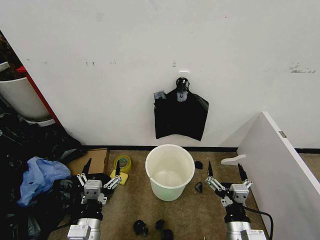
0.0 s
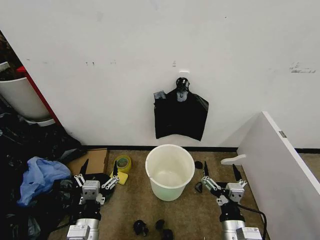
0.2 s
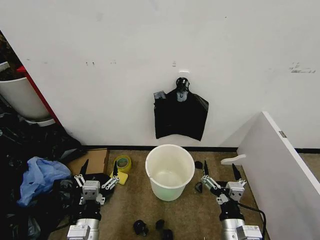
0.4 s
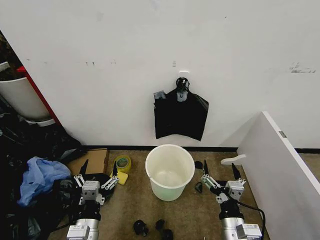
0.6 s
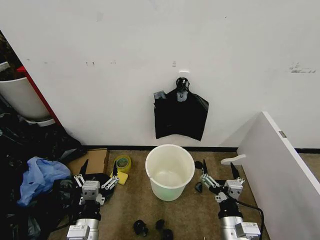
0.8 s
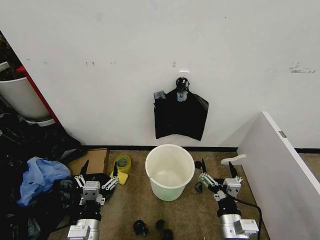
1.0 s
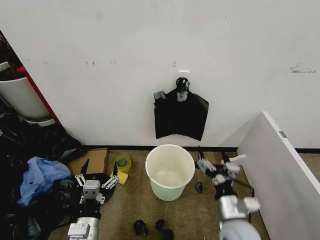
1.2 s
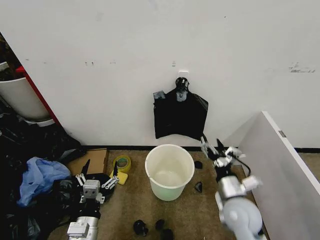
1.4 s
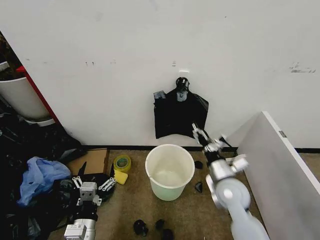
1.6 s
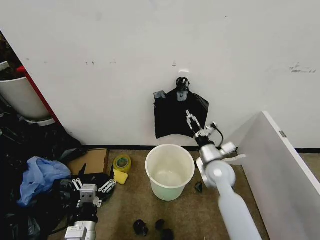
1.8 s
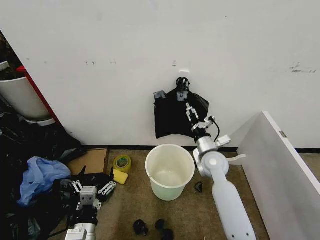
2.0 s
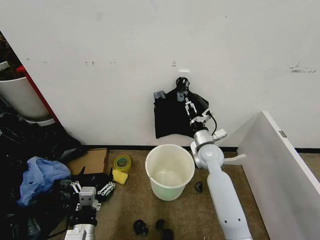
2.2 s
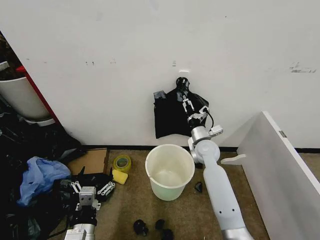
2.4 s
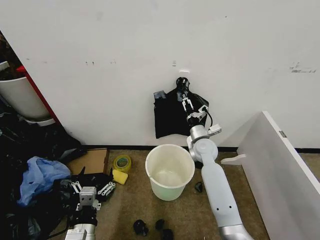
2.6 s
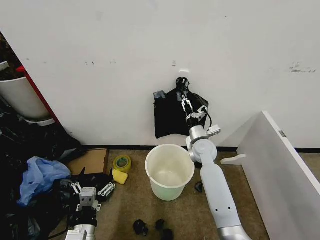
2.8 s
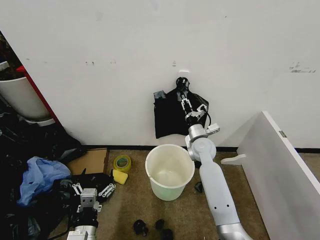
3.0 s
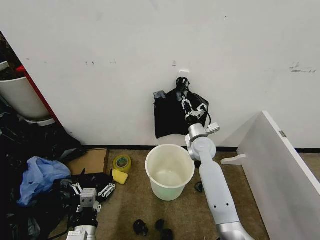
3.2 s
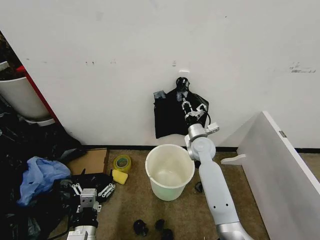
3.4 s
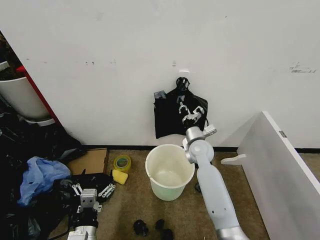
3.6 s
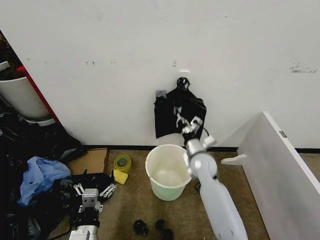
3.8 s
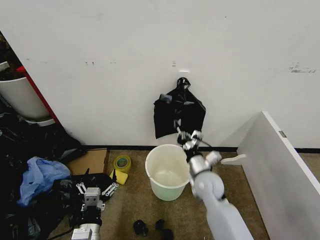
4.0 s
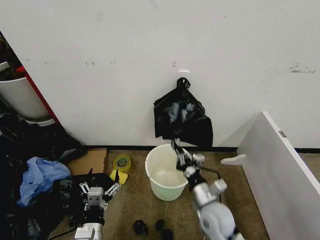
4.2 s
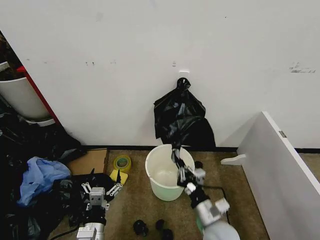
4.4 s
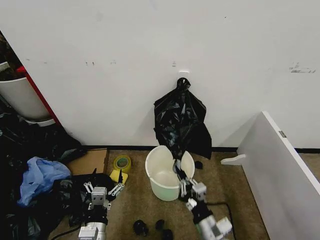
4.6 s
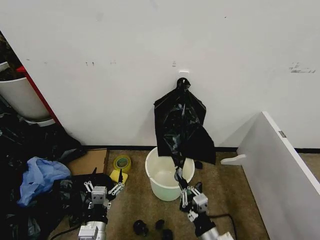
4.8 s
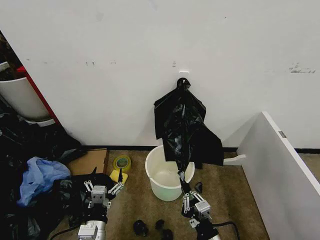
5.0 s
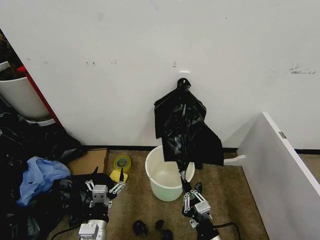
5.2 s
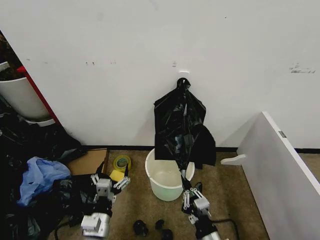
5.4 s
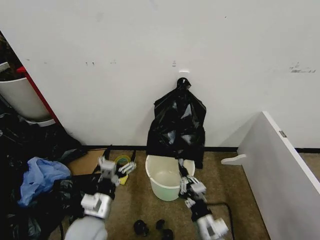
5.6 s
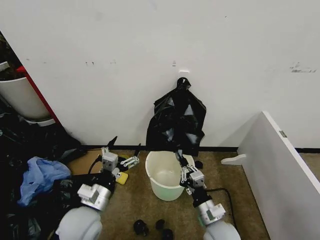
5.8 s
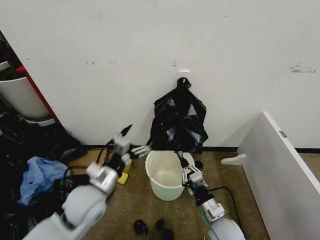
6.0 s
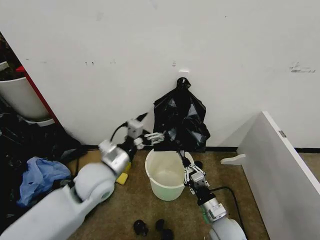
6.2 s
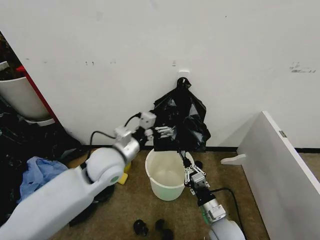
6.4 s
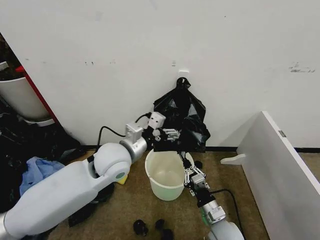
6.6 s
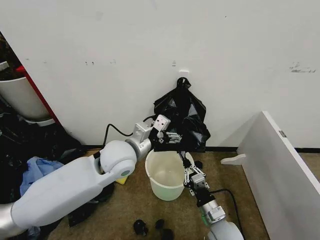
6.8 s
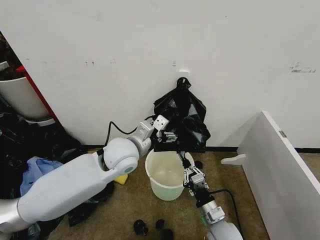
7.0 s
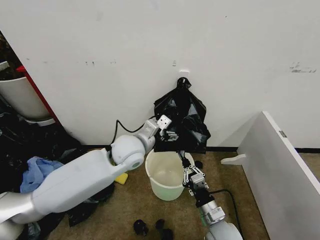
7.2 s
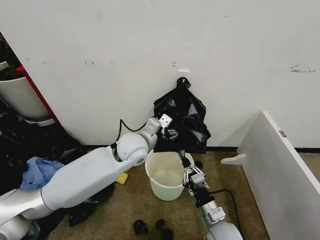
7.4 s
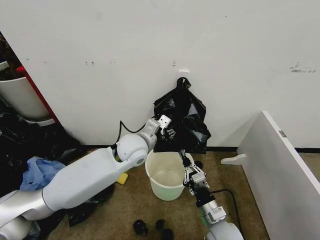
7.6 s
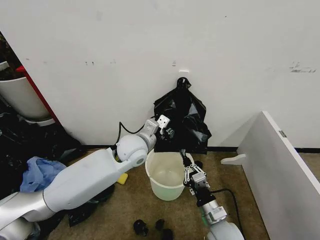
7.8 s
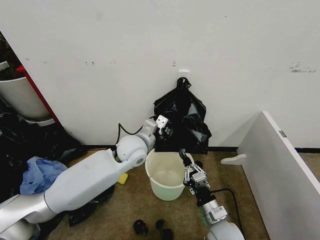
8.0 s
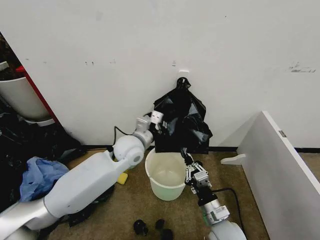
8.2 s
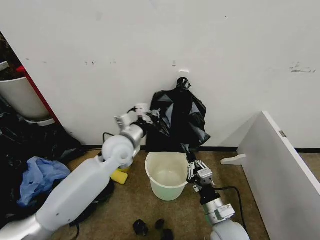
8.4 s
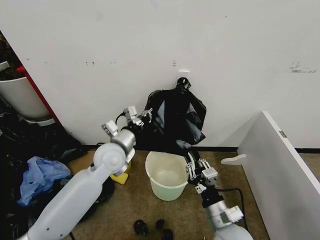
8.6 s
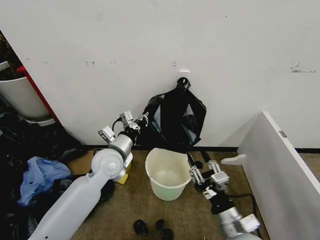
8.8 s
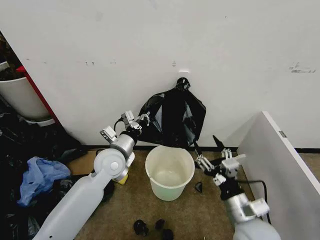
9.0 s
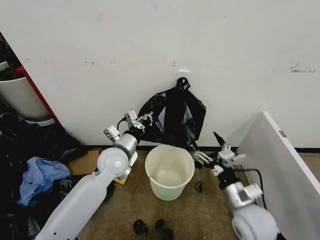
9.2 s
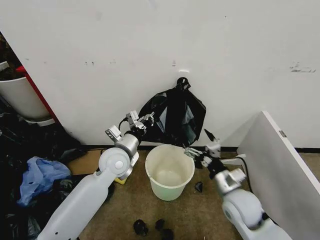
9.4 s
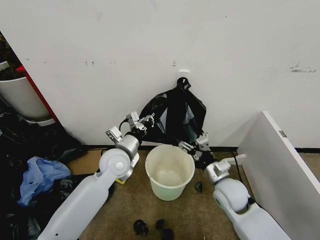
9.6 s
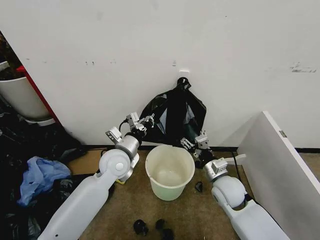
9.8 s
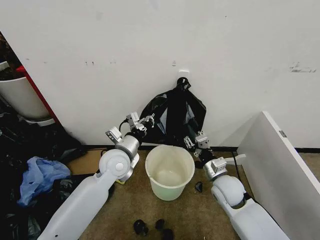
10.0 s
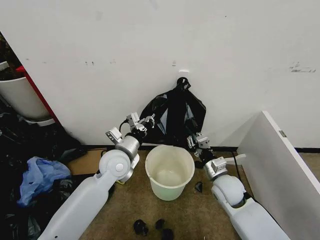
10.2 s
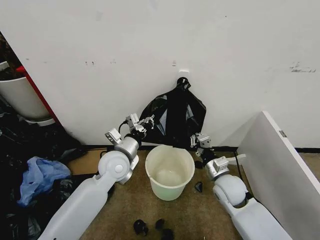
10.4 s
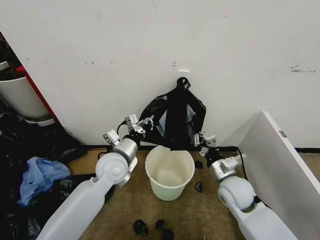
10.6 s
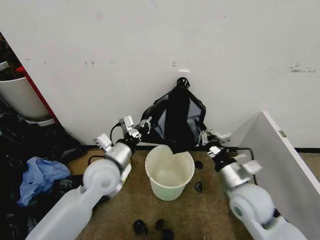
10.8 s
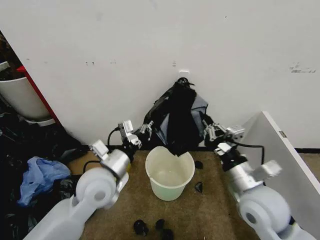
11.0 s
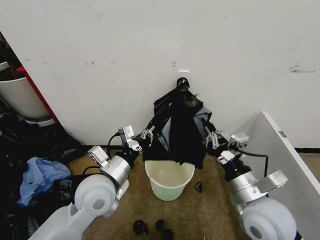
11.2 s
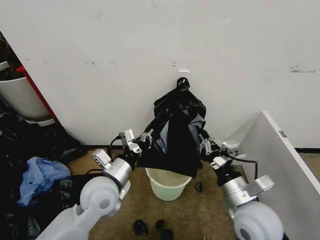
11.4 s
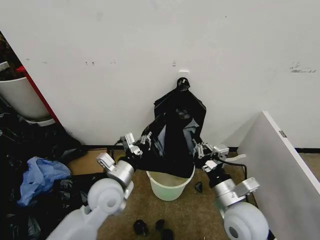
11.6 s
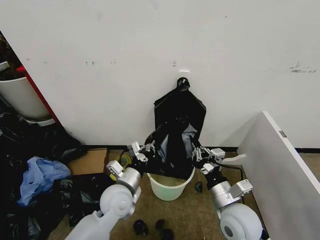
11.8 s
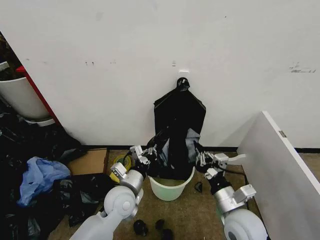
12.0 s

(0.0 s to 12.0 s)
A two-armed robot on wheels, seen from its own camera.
Task of the whole recording: Place the garbage bag over the trash bin.
1.6 s - 3.0 s: The right gripper travels forward by roughly 15 cm, and closes.
3.0 s - 4.4 s: The right gripper heads backward, covering about 25 cm, and closes.
4.4 s - 6.0 s: The left gripper travels upward and forward by about 15 cm. The right gripper goes backward and returns, approximately 10 cm each way.
6.0 s - 7.6 s: The left gripper moves forward and to the right, roughly 20 cm, and closes up.
7.6 s - 9.0 s: The left gripper moves to the left, about 5 cm, and closes up, while the right gripper shifts approximately 10 cm upward, and opens.
9.0 s - 10.4 s: The right gripper goes some 15 cm forward, and closes up.
10.4 s - 12.0 s: The right gripper moves backward, approximately 10 cm, and reaches about 10 cm upward, then returns. Meanwhile the left gripper goes some 10 cm downward and backward.

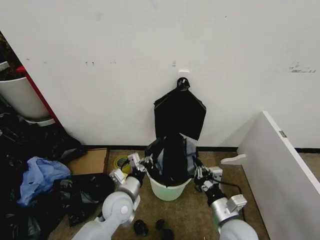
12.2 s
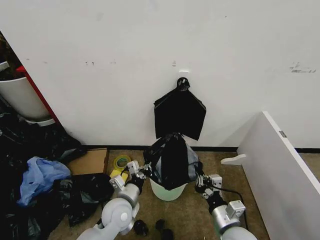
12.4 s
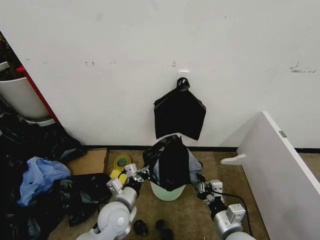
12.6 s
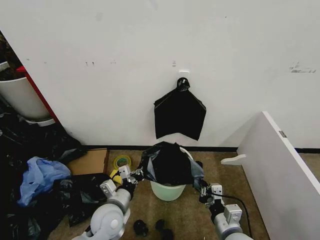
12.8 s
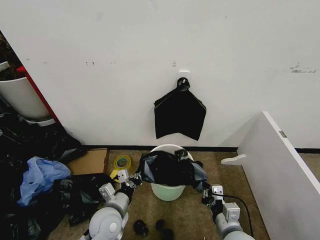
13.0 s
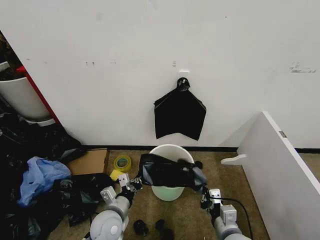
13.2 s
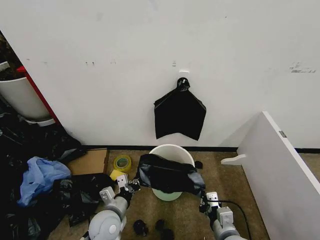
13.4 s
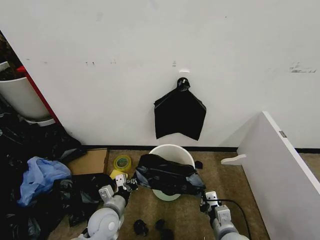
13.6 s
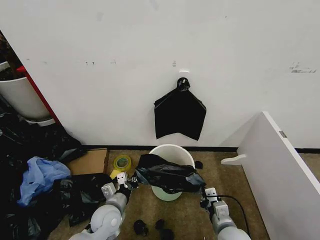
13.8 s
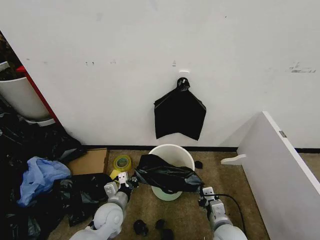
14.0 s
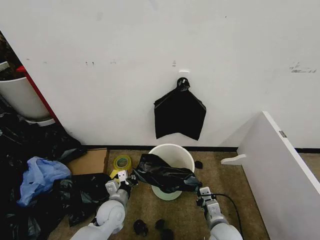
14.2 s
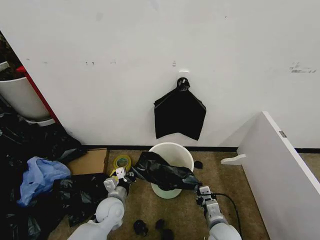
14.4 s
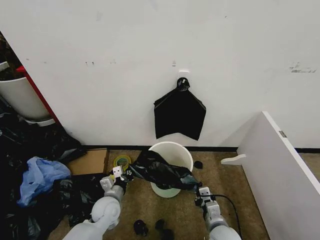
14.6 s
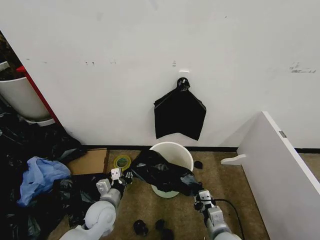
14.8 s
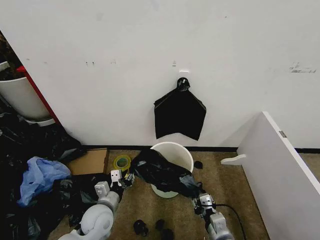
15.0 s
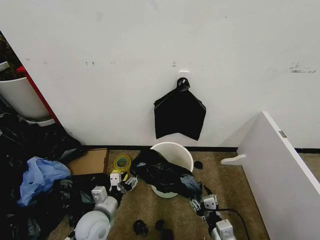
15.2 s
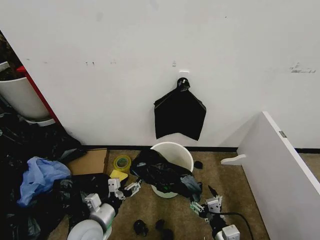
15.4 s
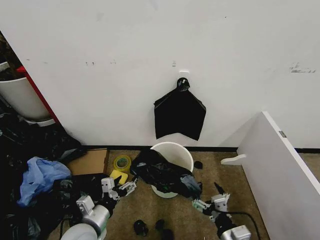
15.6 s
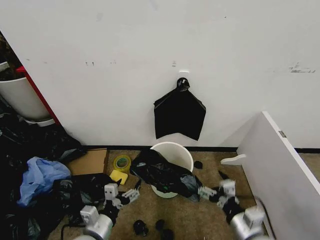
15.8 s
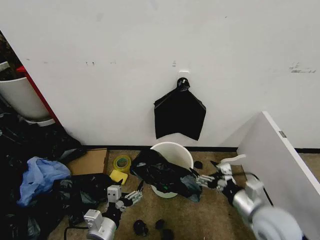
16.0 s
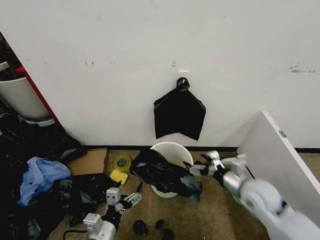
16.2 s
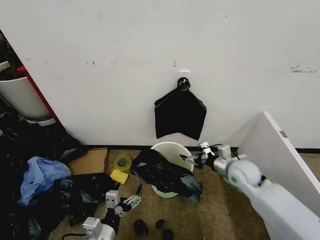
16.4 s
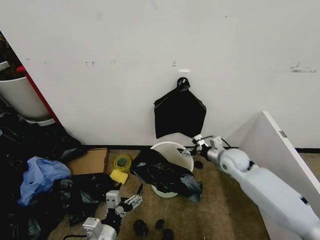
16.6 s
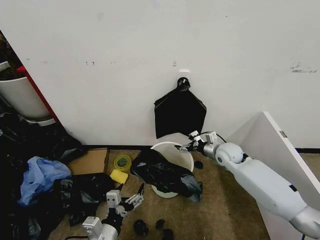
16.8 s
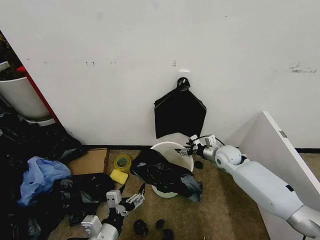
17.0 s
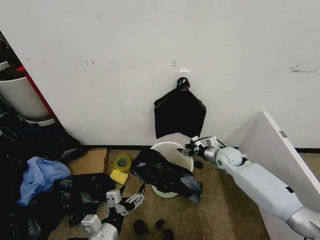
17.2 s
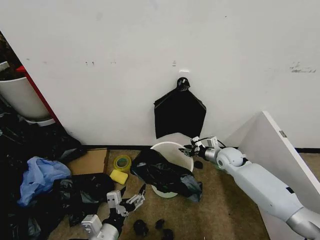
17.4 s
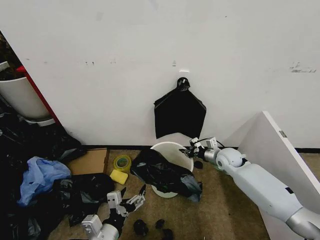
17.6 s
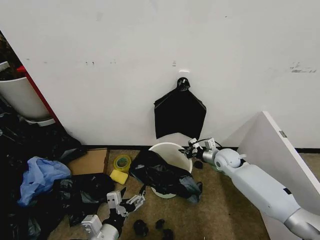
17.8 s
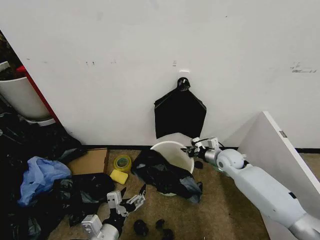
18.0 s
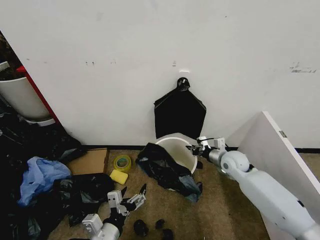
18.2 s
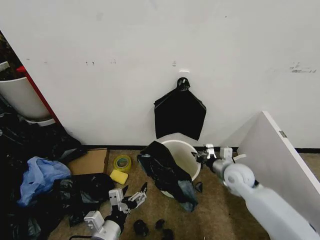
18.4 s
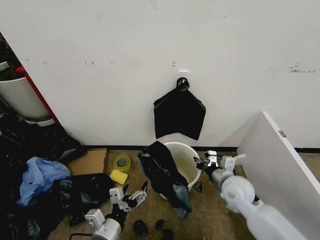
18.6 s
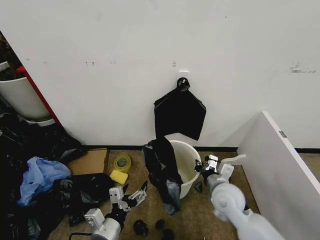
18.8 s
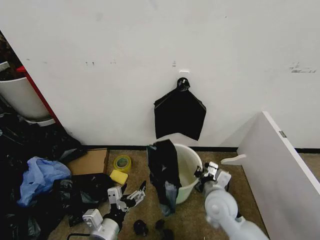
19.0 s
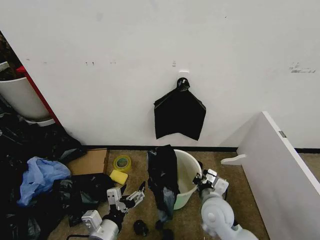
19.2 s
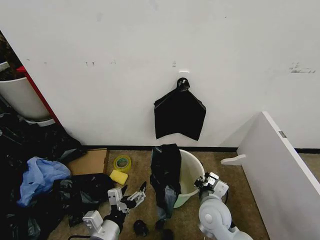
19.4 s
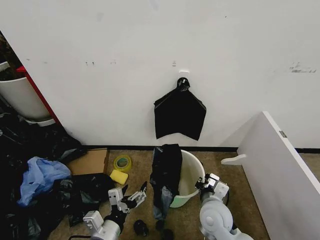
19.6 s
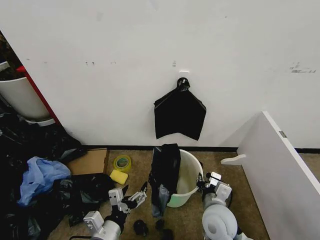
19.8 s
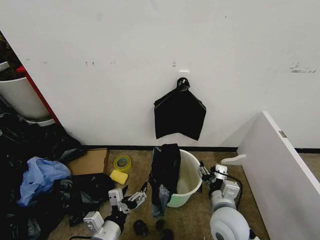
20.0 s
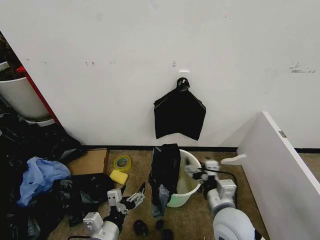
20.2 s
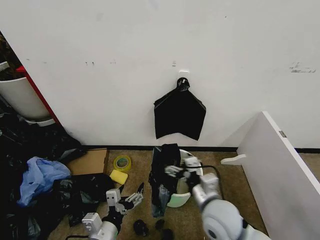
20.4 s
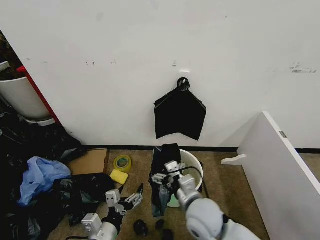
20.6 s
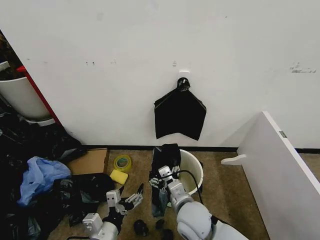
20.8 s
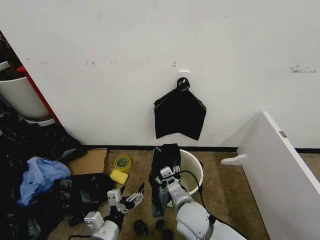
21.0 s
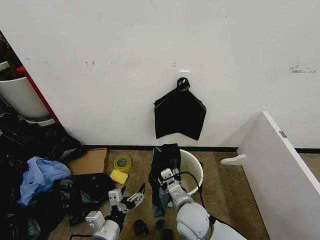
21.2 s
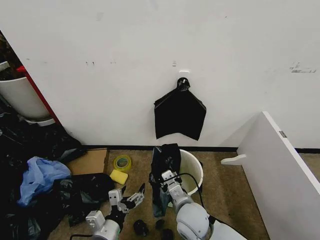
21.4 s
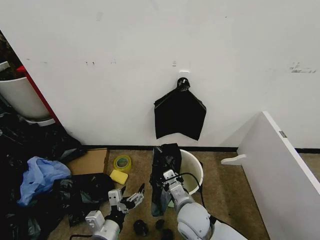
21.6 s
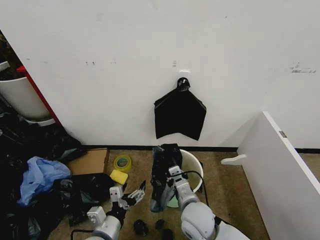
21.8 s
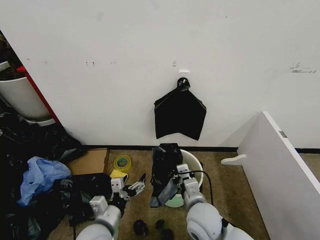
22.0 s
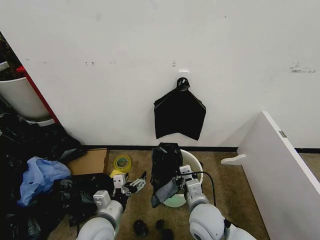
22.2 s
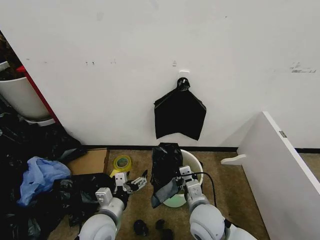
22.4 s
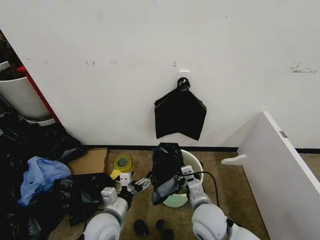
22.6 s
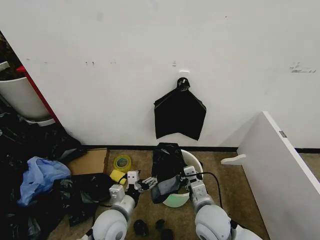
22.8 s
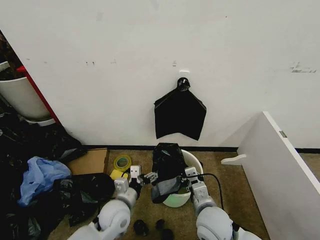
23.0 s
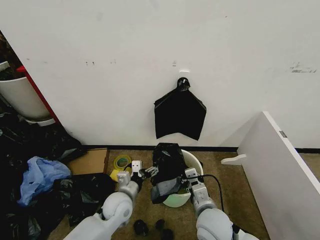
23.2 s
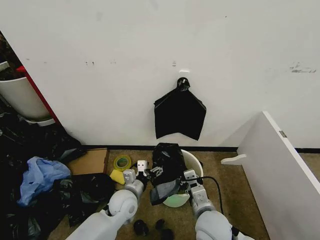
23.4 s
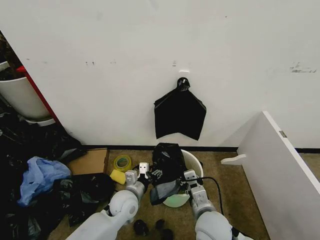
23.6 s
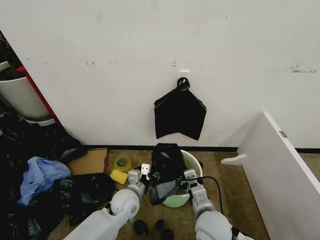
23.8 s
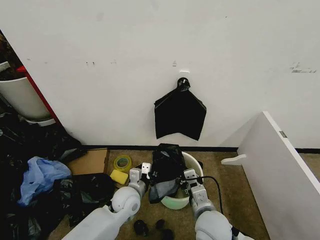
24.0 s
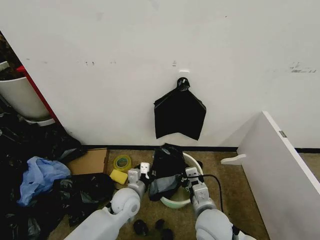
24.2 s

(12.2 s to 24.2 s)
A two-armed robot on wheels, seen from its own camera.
Task of the whole recording: Place the garbage bag over the trash bin.
12.2 s - 13.8 s: The grippers both shift downward by roughly 5 cm.
13.8 s - 15.2 s: The right gripper opens its fingers, while the left gripper opens its fingers.
15.2 s - 16.6 s: The right gripper is displaced forward by approximately 30 cm, and opens. Meanwhile the left gripper shifts approximately 10 cm backward.
16.6 s - 18.2 s: The right gripper closes.
18.2 s - 19.8 s: The right gripper travels backward and to the left by about 25 cm, and opens.
19.8 s - 21.2 s: The right gripper moves to the left, some 10 cm, and opens, then closes again.
21.2 s - 22.6 s: The left gripper travels forward by roughly 5 cm; the right gripper closes.
22.6 s - 24.2 s: The left gripper shifts approximately 10 cm forward, and closes.
